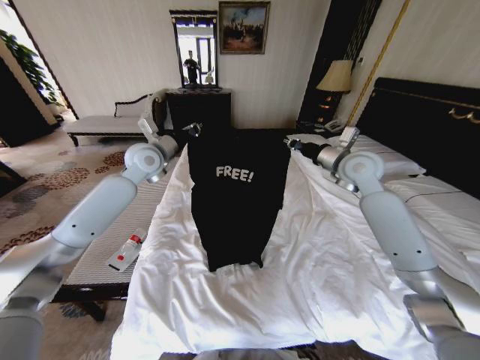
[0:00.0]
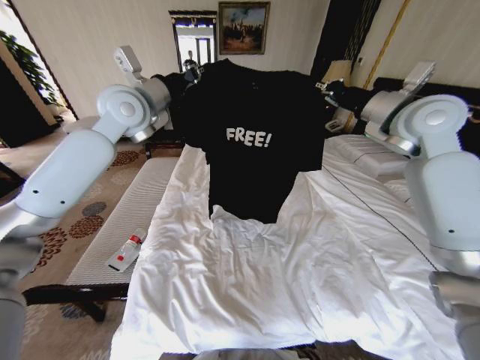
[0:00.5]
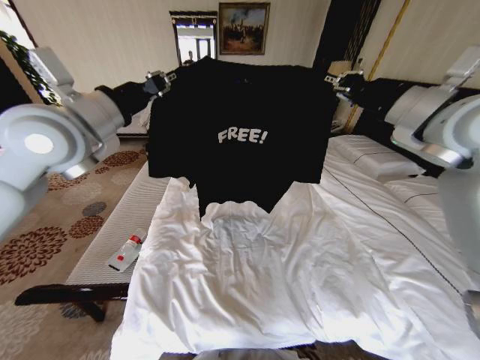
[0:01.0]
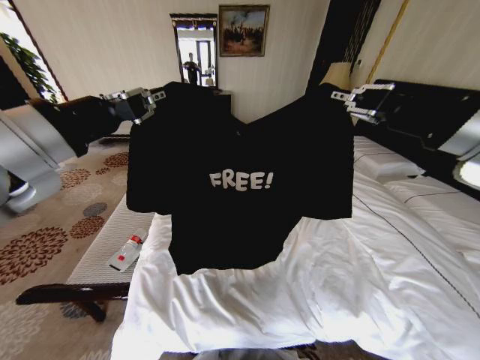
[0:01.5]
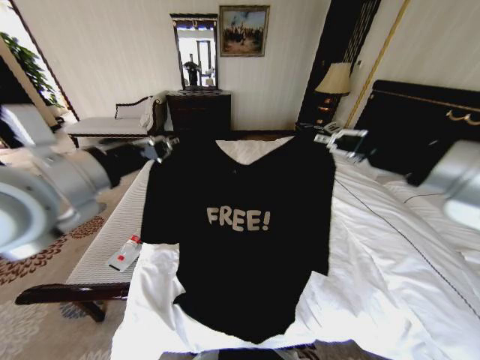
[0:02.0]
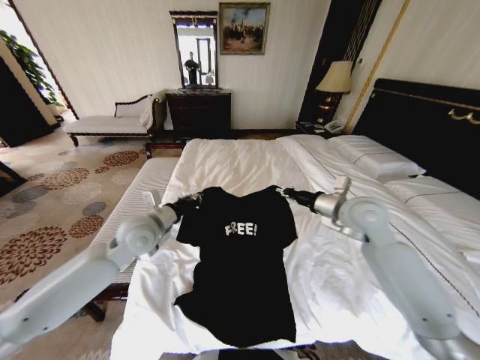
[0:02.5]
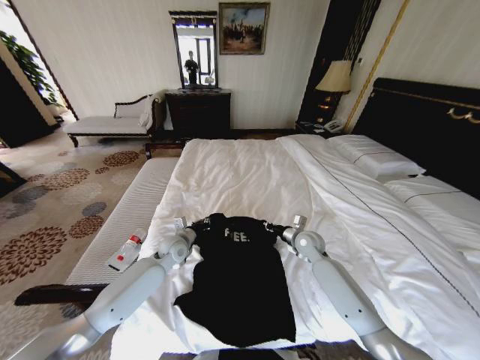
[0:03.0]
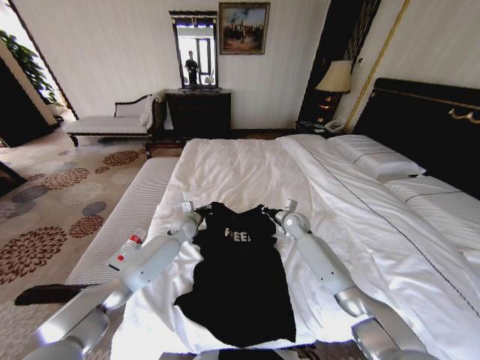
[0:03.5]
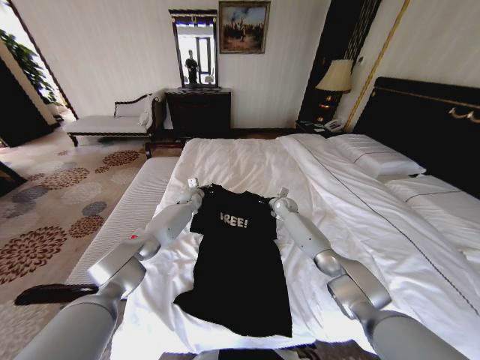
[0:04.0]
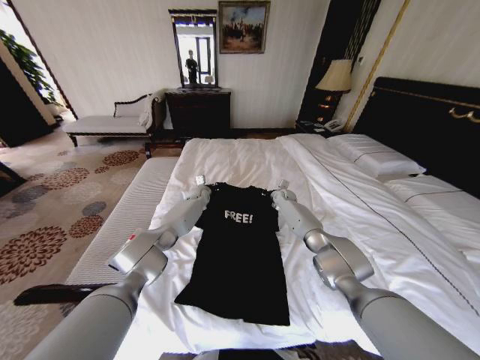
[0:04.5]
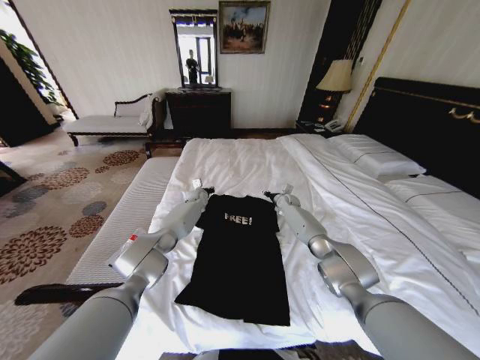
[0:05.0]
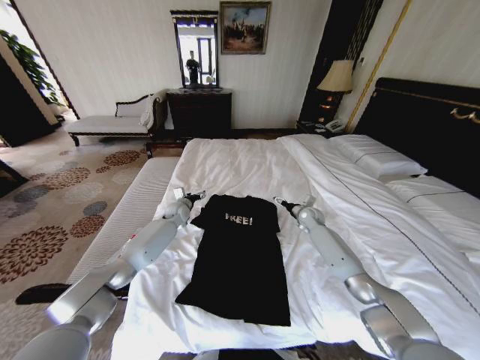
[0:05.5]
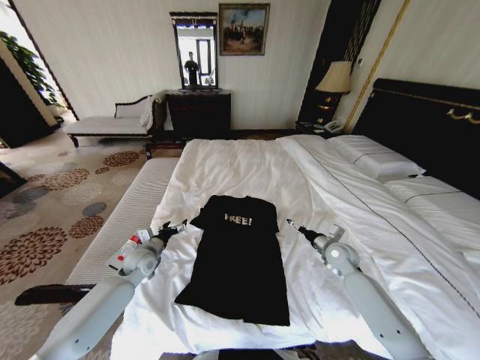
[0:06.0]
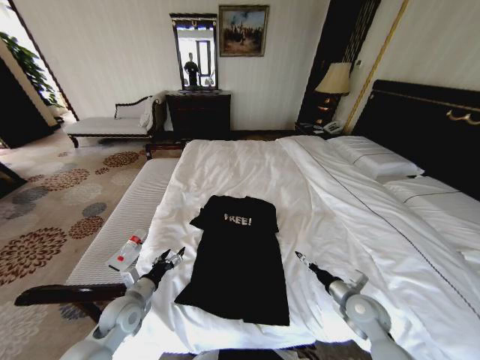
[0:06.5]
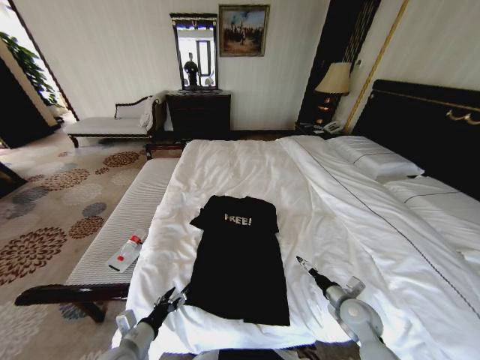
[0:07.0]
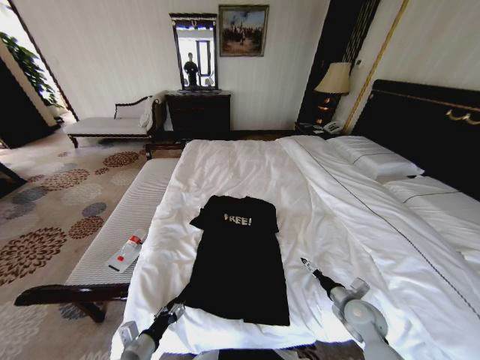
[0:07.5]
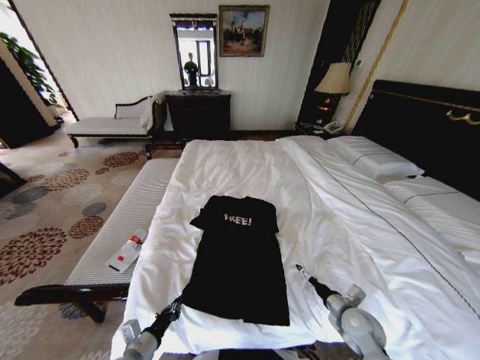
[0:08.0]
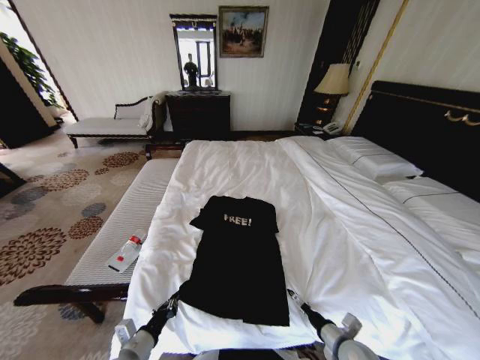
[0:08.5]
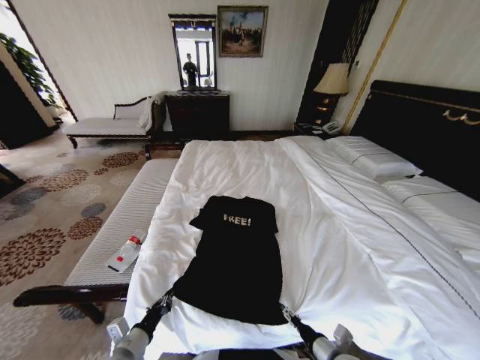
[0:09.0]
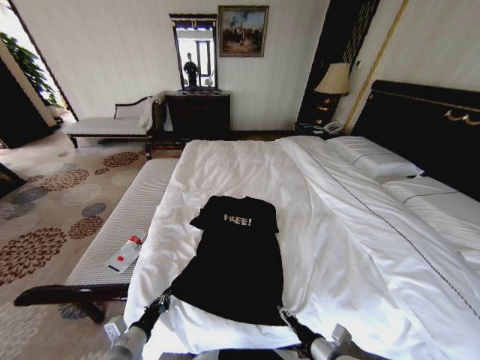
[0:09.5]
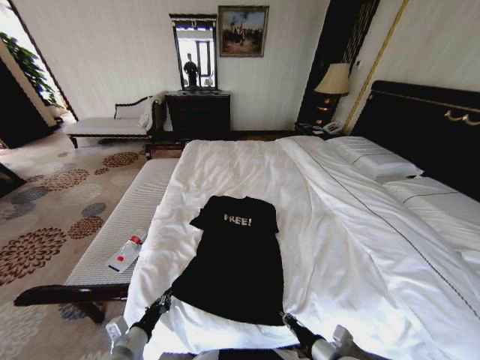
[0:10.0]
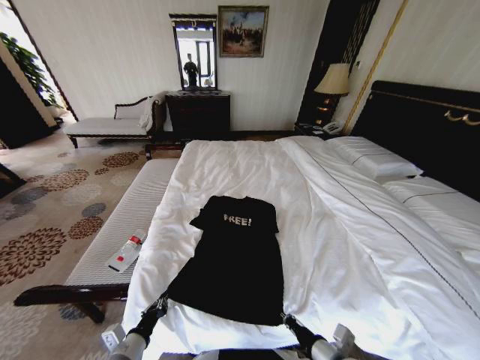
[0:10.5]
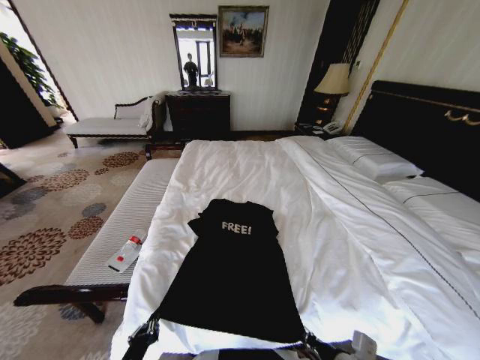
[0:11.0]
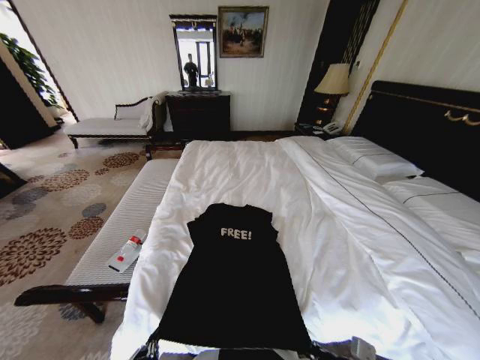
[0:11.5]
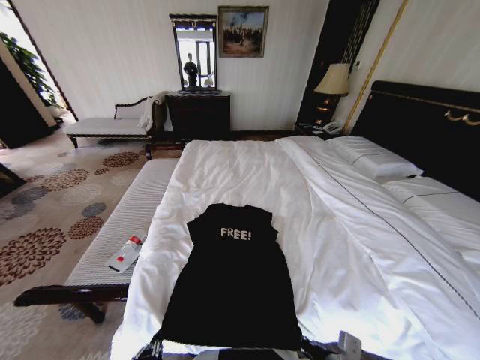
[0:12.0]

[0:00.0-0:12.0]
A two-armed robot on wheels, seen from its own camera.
Task of the whole recording: Fold the clothes on the bed.
0:00.0 to 0:02.0: The right gripper goes some 25 cm backward and upward. The left gripper moves backward, roughly 25 cm.
0:02.0 to 0:04.0: The left gripper shifts approximately 50 cm forward and downward, while the right gripper is displaced downward and forward by approximately 60 cm.
0:04.0 to 0:06.0: The left gripper goes some 30 cm backward and to the left, and opens its fingers; the right gripper moves backward and to the right, approximately 25 cm, and opens.
0:06.0 to 0:08.0: The grippers both shift backward by about 25 cm. The left gripper closes its fingers.
0:08.0 to 0:10.0: The right gripper heads backward and to the left, covering roughly 15 cm, and closes its fingers.
0:10.0 to 0:12.0: The right gripper changes place by some 5 cm; the left gripper heads backward, covering approximately 10 cm.

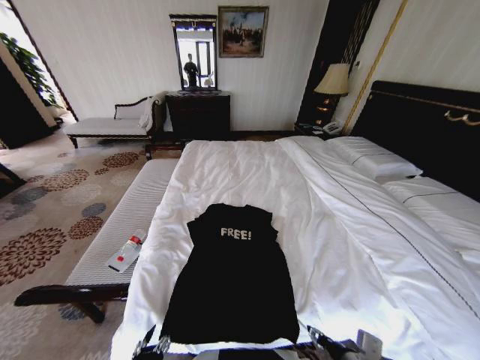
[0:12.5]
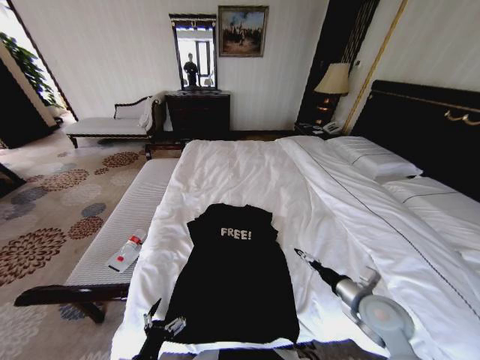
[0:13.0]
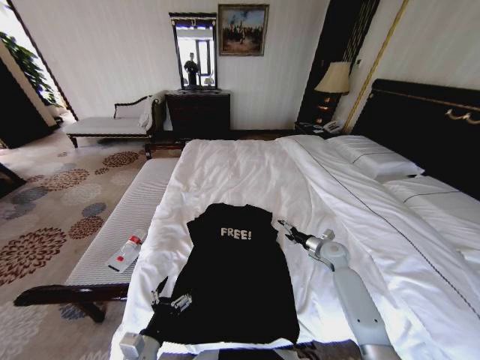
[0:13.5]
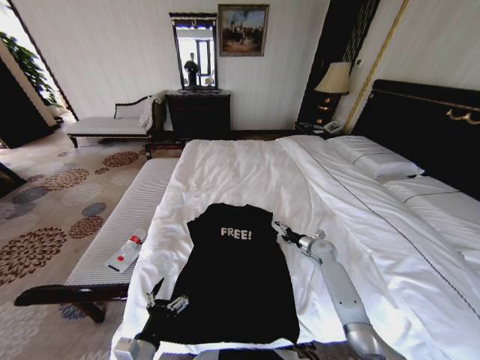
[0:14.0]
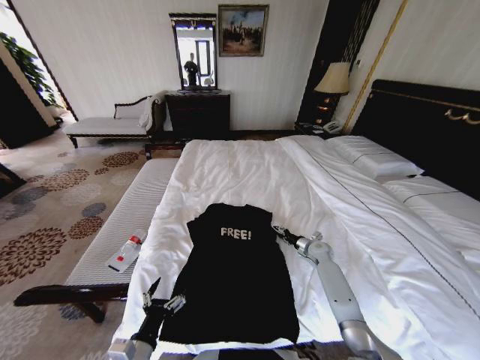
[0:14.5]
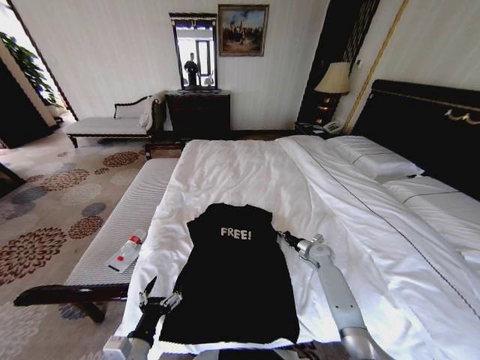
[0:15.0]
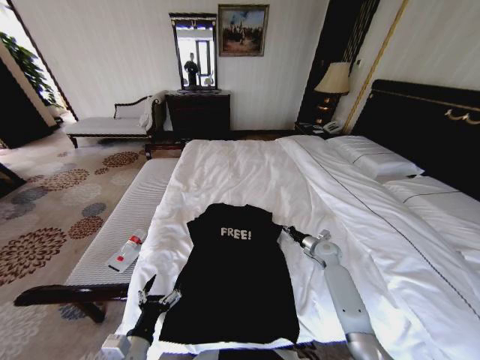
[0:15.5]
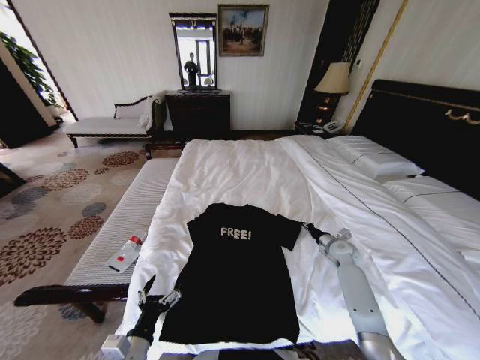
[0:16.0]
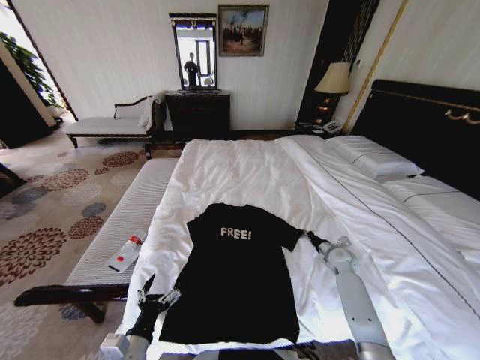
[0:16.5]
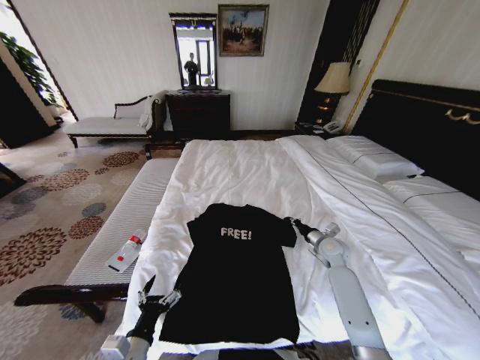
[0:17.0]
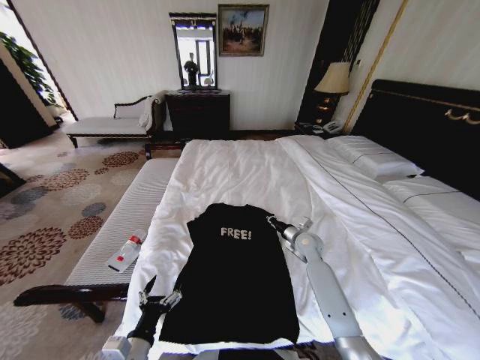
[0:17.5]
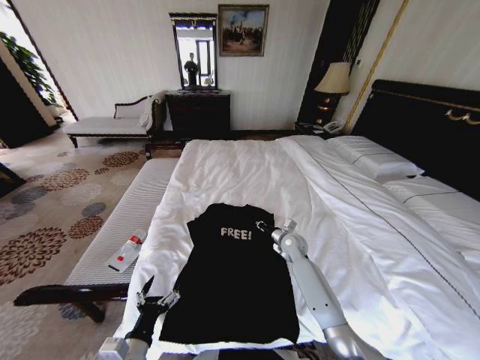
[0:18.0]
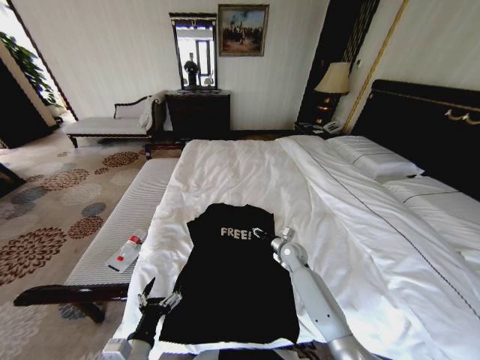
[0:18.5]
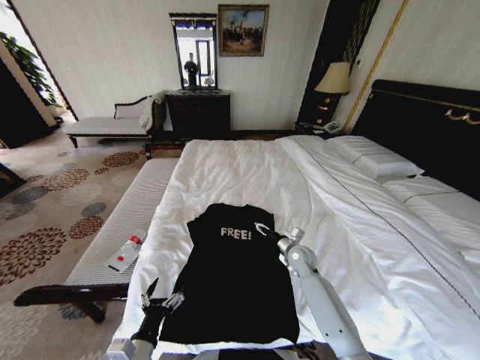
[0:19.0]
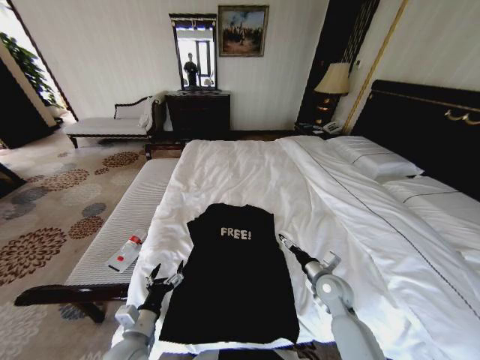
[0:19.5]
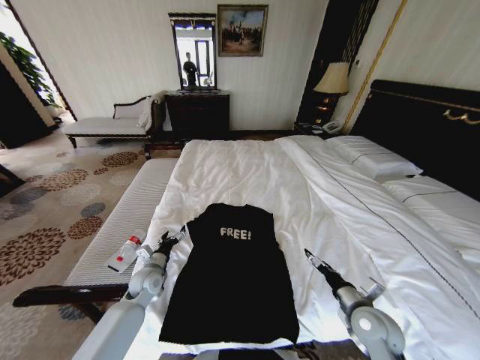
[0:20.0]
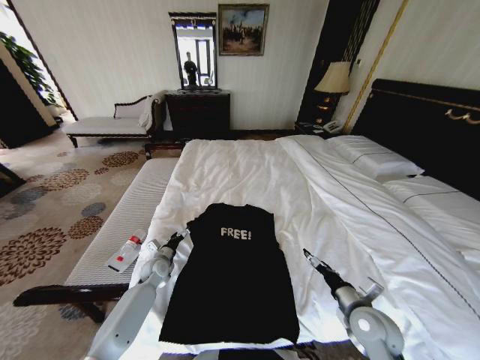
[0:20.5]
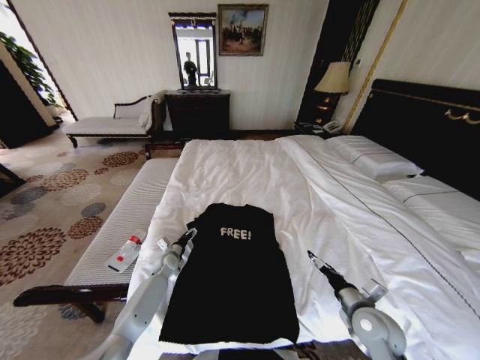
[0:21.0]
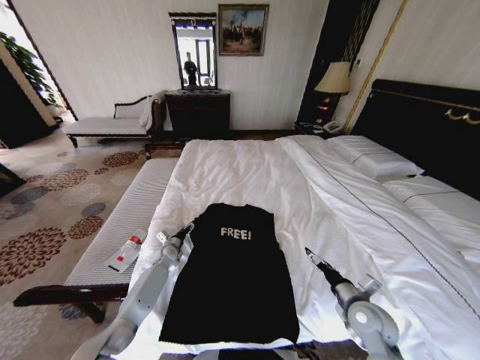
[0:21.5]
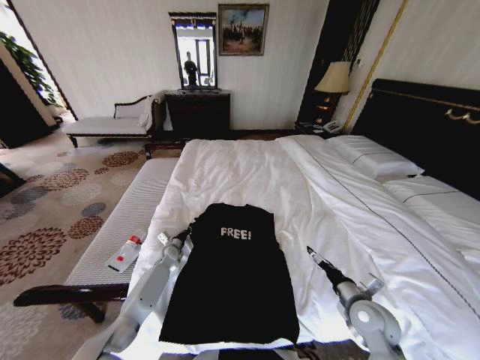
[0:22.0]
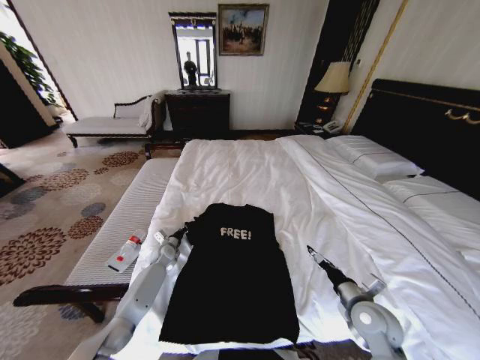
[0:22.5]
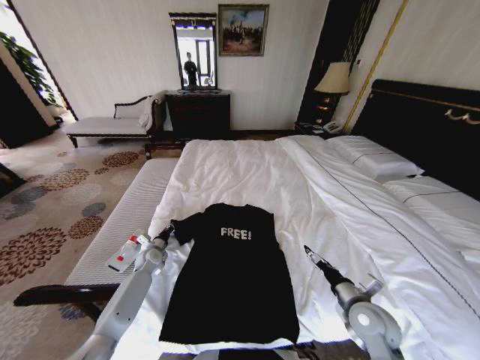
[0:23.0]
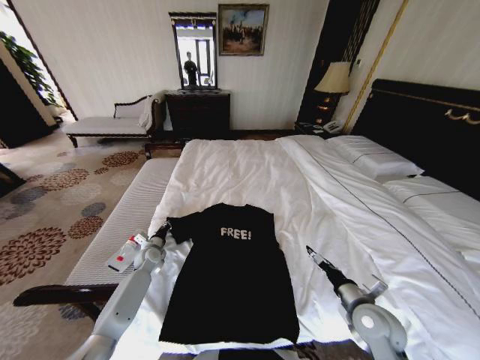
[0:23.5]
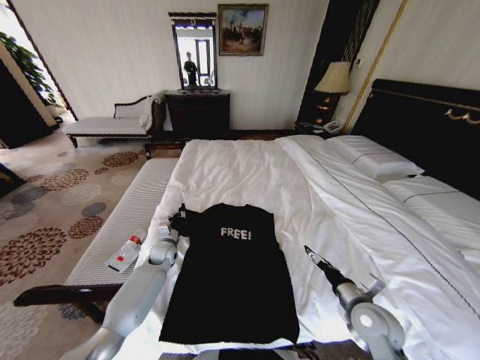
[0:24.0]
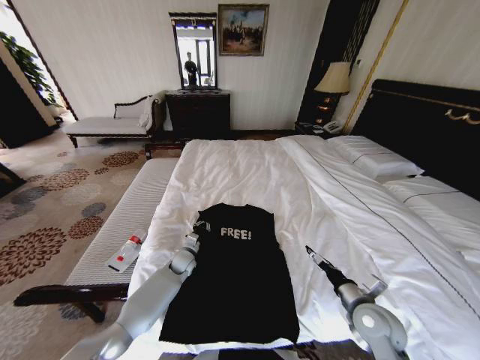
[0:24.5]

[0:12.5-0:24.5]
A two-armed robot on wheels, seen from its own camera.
Task of the whole recording: Fold the clothes on the bed.
0:12.5 to 0:14.5: The left gripper heads forward, covering some 5 cm, and opens, while the right gripper moves forward, about 35 cm, and opens, then closes once more.
0:14.5 to 0:16.5: The right gripper changes place by about 10 cm, and closes up.
0:16.5 to 0:18.5: The right gripper travels to the left by some 20 cm.
0:18.5 to 0:20.5: The right gripper shifts about 25 cm backward and to the right, and opens up. Meanwhile the left gripper is displaced forward by roughly 30 cm.
0:20.5 to 0:22.5: The left gripper moves forward, roughly 5 cm, and closes its fingers.
0:22.5 to 0:24.5: The left gripper heads to the right, covering roughly 10 cm.

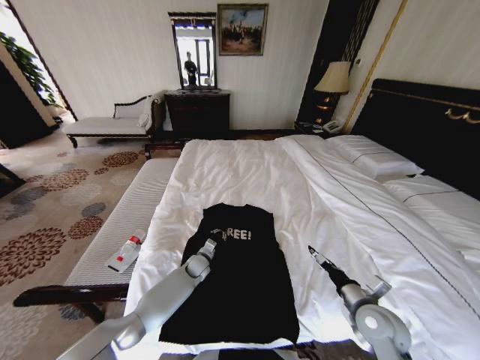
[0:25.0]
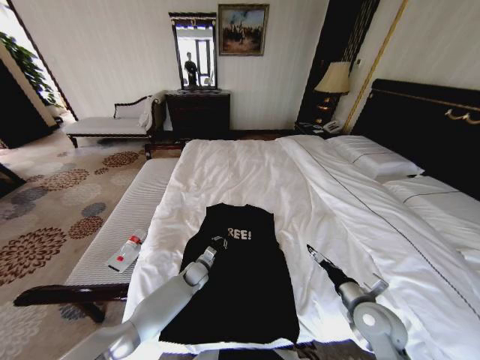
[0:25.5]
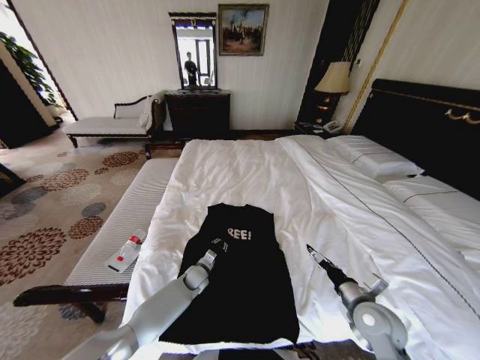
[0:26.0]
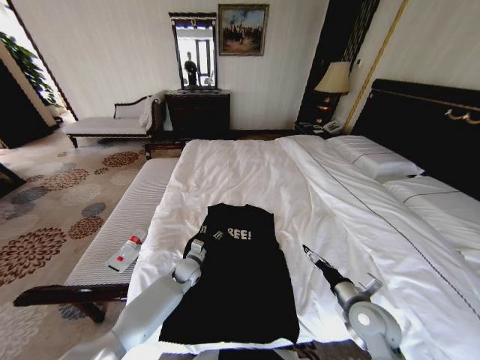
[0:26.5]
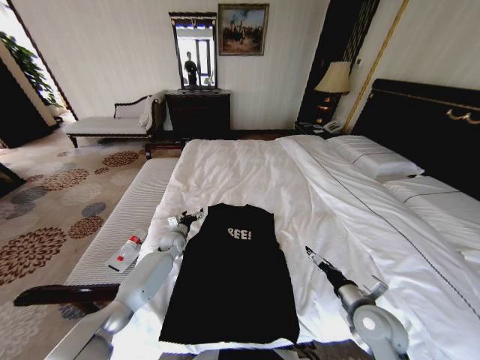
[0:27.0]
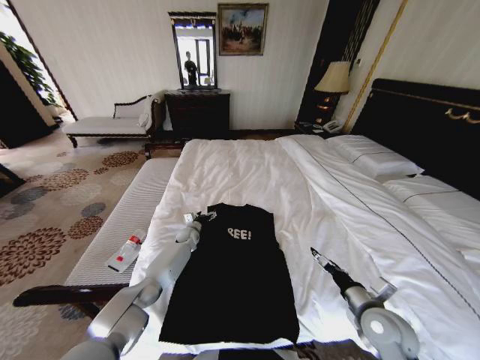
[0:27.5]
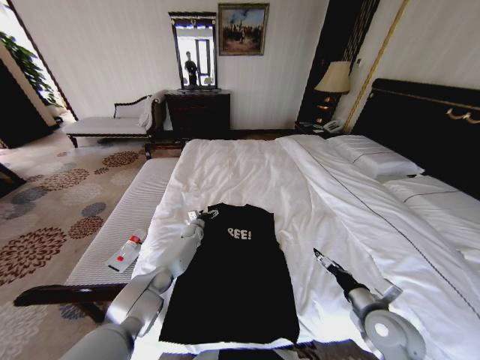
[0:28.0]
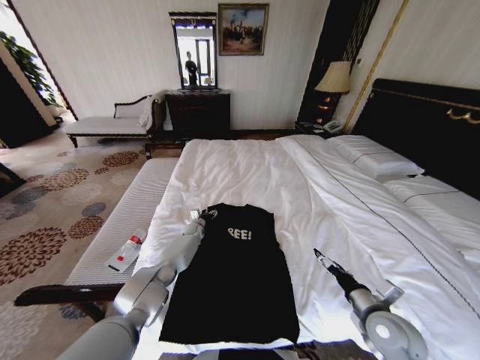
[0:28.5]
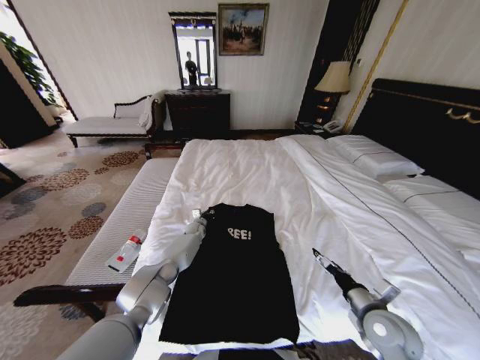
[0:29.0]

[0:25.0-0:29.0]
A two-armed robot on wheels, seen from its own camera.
Task of the whole recording: Fold the clothes on the bed.
0:25.0 to 0:27.0: The left gripper heads to the left, upward and forward, covering about 15 cm, and opens its fingers.
0:27.0 to 0:29.0: The left gripper shifts approximately 15 cm forward, to the right and downward, and closes up.
